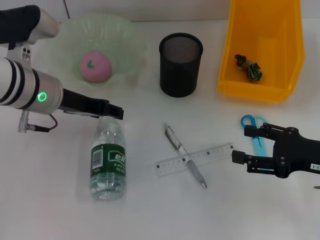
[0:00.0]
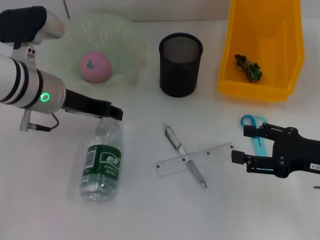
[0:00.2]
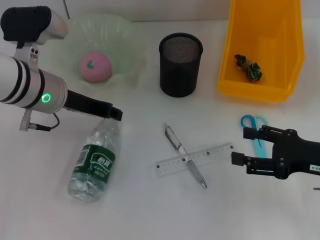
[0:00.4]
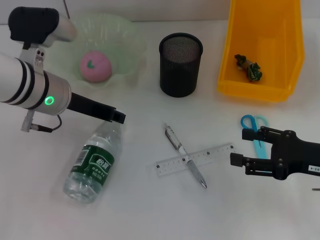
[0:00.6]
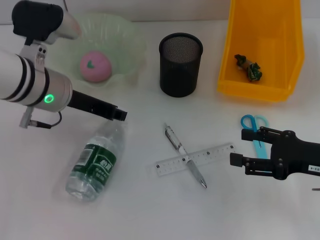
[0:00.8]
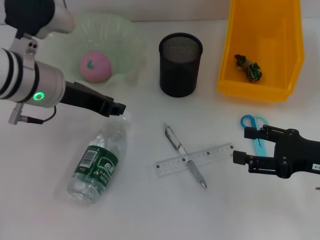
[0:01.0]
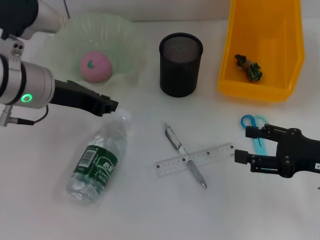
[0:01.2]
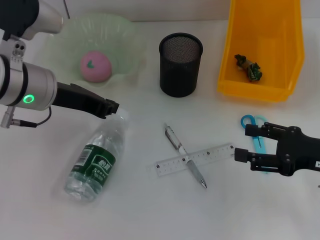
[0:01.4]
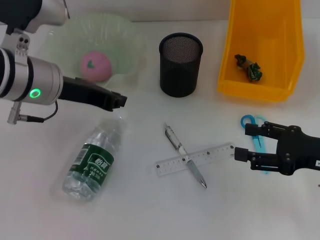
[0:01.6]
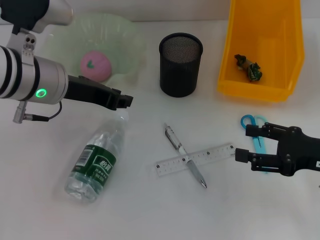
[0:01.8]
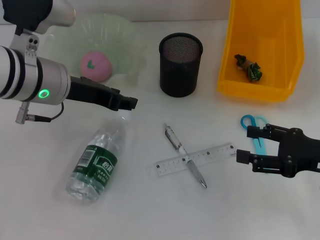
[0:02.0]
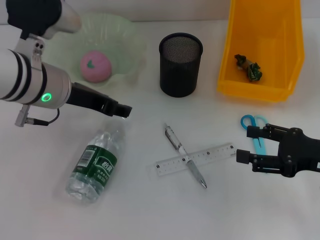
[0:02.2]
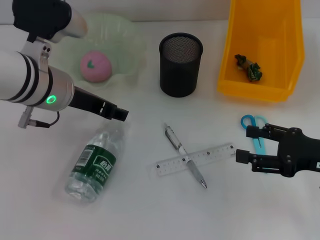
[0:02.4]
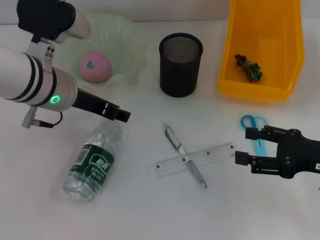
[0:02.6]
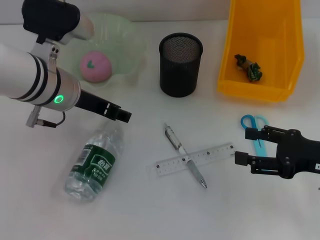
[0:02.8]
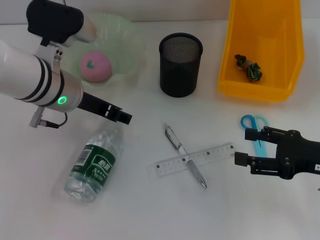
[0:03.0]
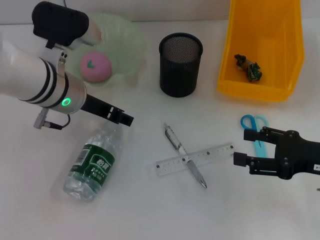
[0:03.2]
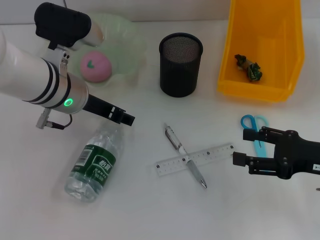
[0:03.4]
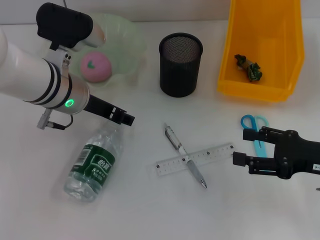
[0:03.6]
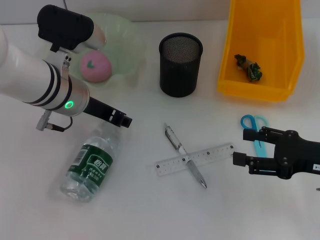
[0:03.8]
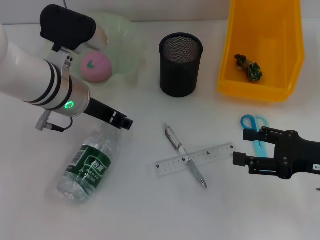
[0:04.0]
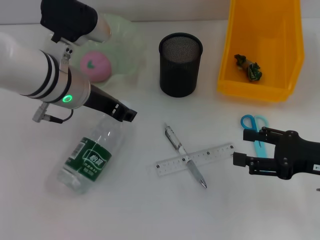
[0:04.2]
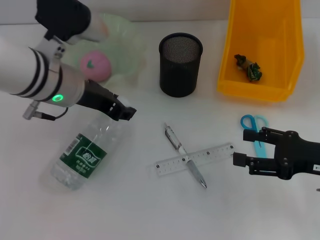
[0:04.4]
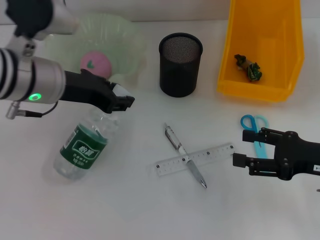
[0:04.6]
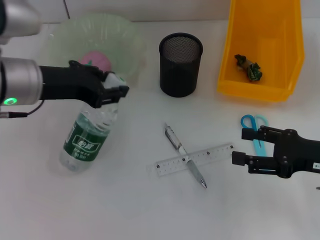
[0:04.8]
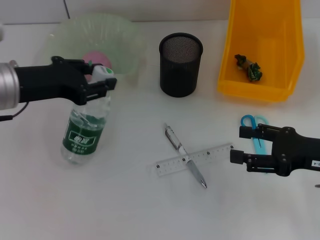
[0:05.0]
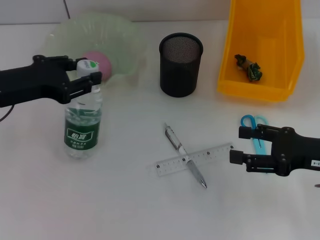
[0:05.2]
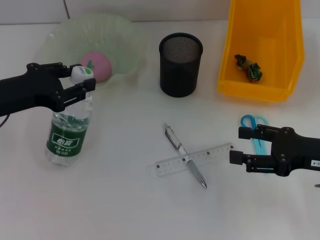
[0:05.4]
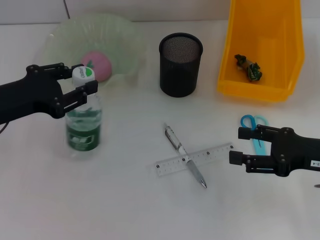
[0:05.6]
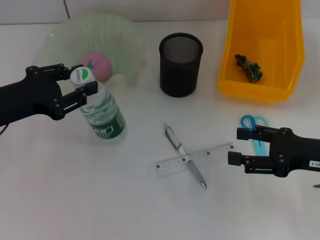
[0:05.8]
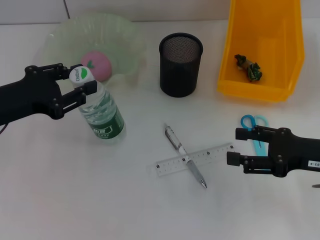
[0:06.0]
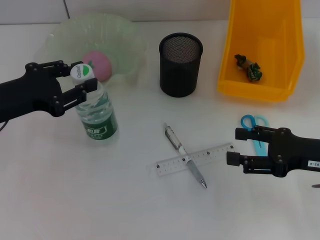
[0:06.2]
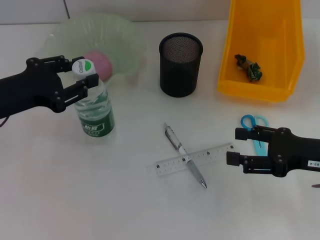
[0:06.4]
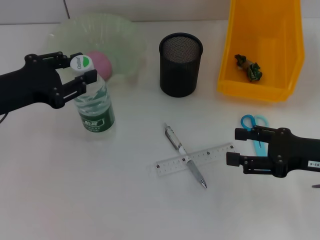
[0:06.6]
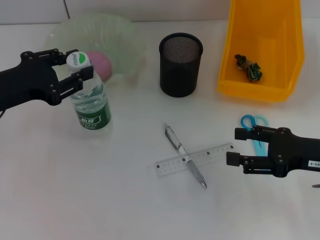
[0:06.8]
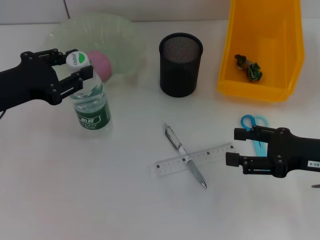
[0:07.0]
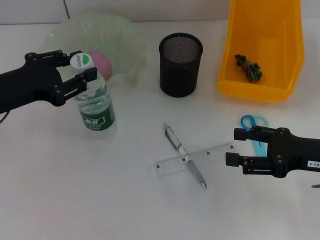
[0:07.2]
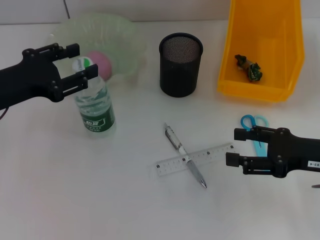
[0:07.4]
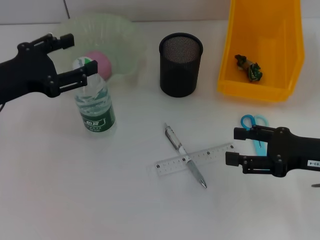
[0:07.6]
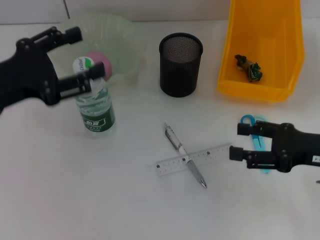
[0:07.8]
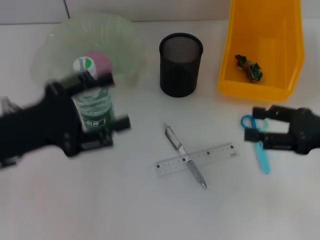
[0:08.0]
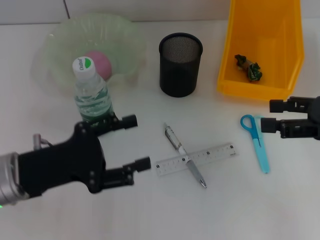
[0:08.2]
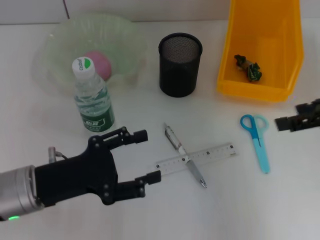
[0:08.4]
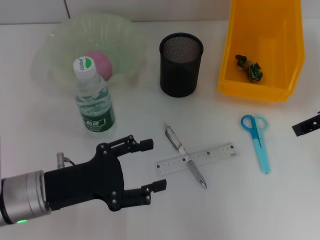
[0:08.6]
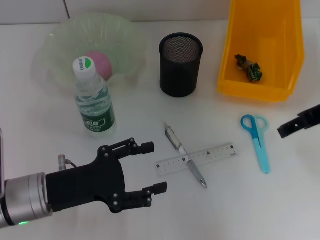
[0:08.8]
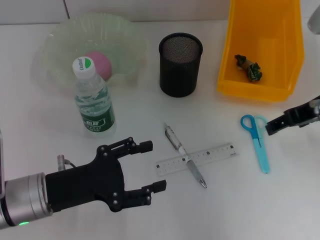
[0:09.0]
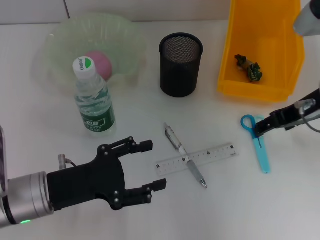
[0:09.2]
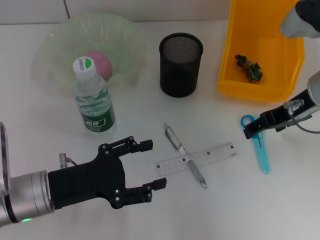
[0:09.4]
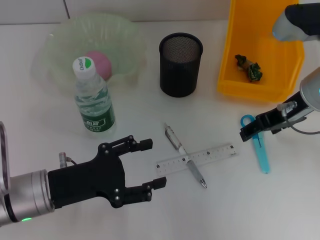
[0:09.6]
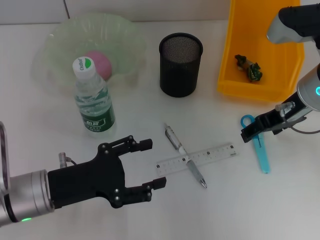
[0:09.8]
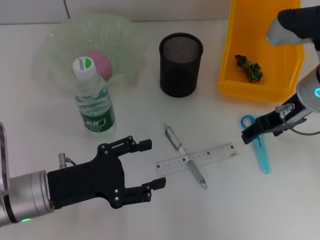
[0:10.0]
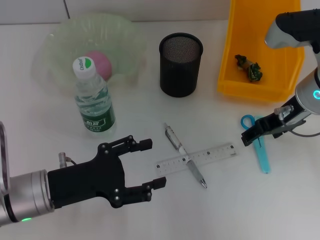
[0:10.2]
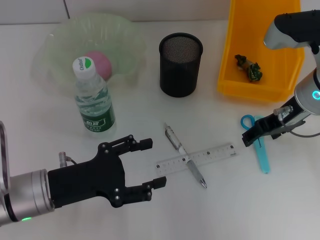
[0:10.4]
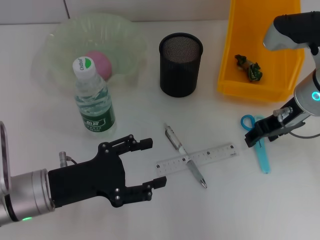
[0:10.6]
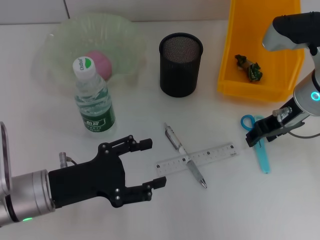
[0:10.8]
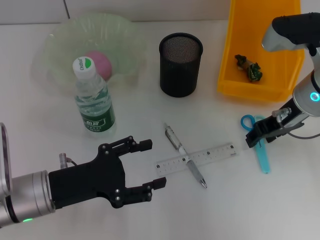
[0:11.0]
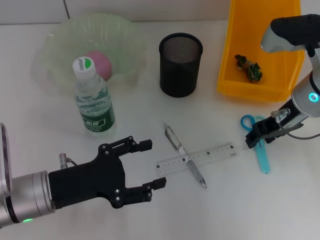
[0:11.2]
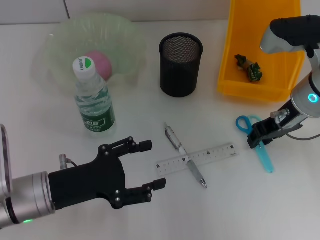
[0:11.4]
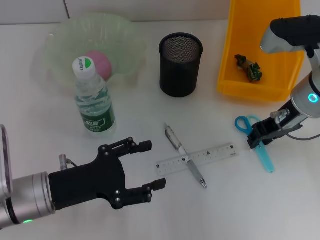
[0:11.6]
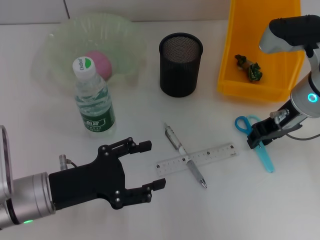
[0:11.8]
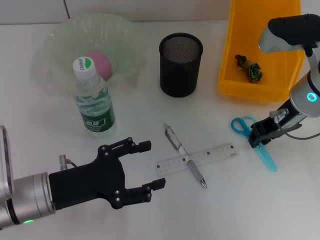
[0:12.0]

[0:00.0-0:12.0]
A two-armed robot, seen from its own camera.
Step, 0:00.0 to 0:03.6: Grab the water bottle with the left hand.
Step, 0:03.8 to 0:07.6: Place the water bottle on the table with the left hand.
0:00.0 to 0:01.6: The left gripper closes.
0:01.6 to 0:03.0: The left gripper opens up.
0:03.0 to 0:04.4: The grippers stay close to where they were, moving slightly.
0:04.4 to 0:06.0: The left gripper heads to the left and backward, covering roughly 15 cm.
0:06.0 to 0:07.6: The grippers make only small movements.
0:07.6 to 0:09.0: The right gripper shifts roughly 10 cm upward and forward, while the left gripper heads downward, backward and to the right, covering some 15 cm.
0:09.0 to 0:10.4: The right gripper shifts by approximately 5 cm.
0:10.4 to 0:12.0: The right gripper closes its fingers.

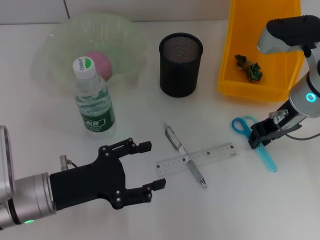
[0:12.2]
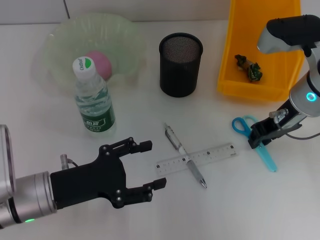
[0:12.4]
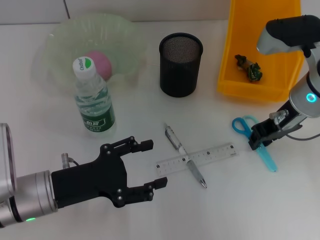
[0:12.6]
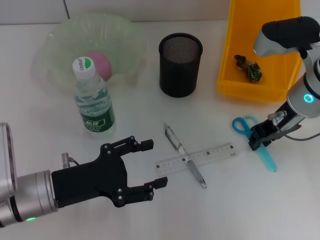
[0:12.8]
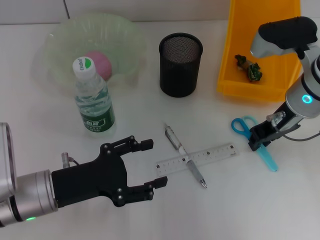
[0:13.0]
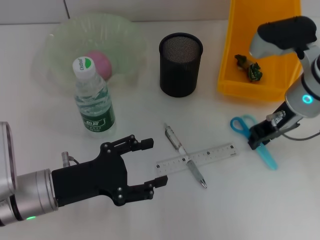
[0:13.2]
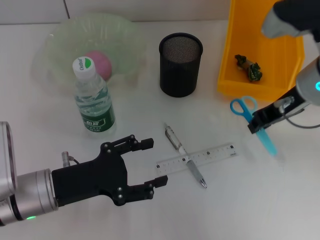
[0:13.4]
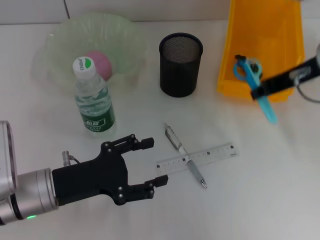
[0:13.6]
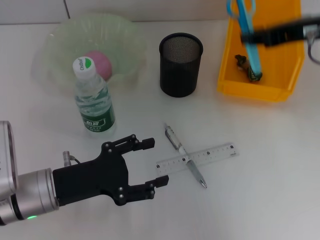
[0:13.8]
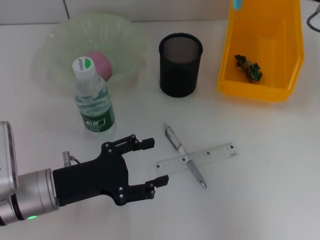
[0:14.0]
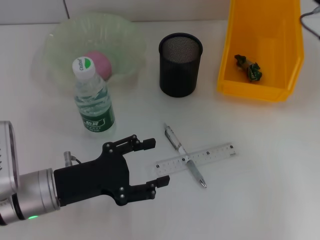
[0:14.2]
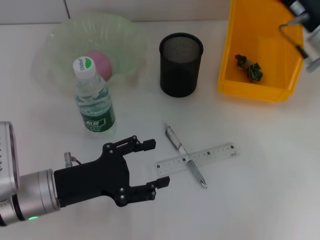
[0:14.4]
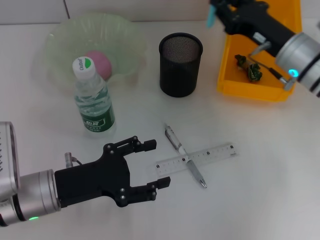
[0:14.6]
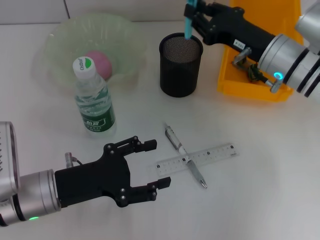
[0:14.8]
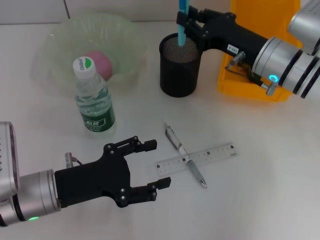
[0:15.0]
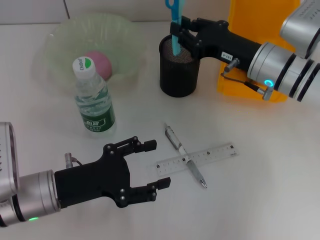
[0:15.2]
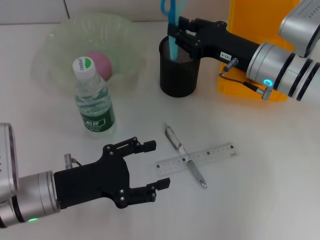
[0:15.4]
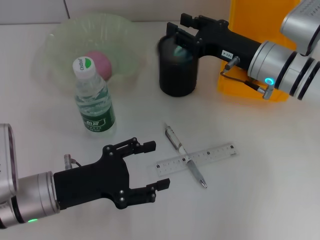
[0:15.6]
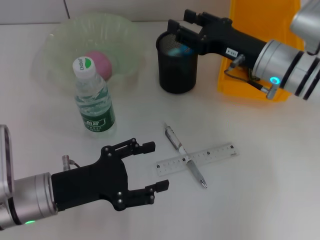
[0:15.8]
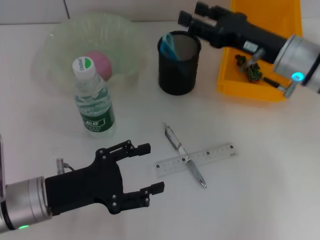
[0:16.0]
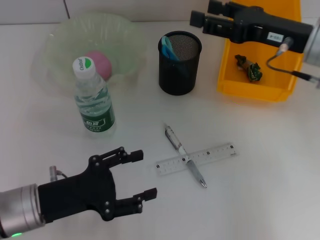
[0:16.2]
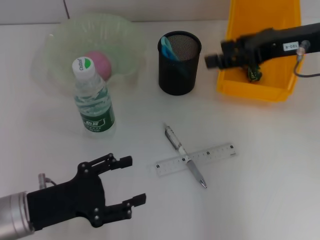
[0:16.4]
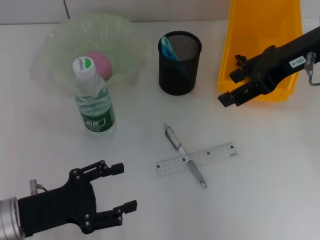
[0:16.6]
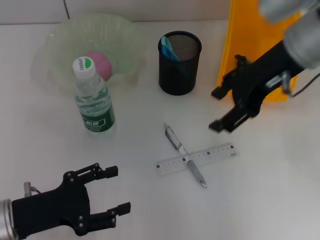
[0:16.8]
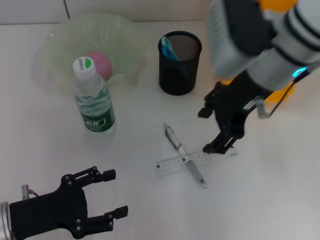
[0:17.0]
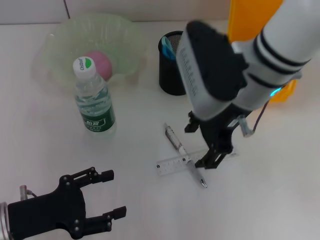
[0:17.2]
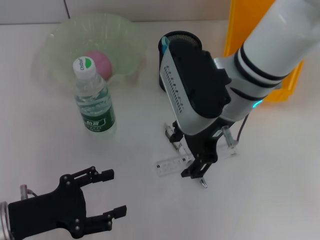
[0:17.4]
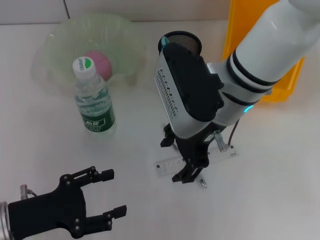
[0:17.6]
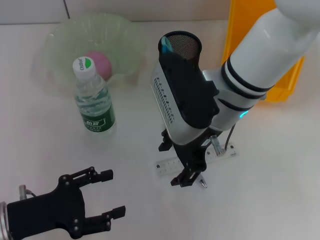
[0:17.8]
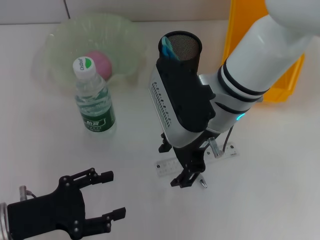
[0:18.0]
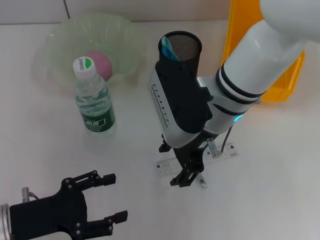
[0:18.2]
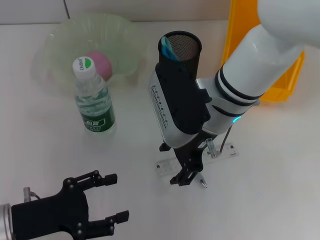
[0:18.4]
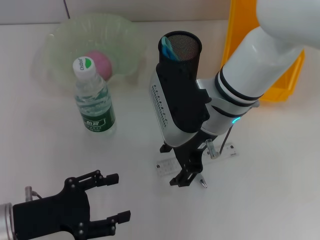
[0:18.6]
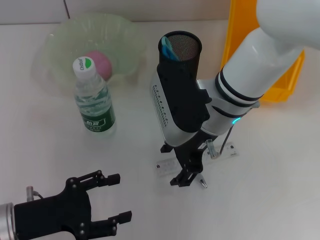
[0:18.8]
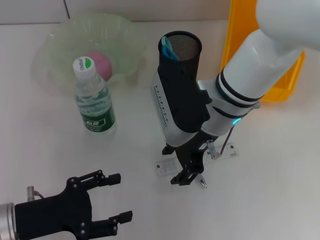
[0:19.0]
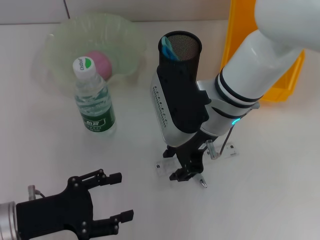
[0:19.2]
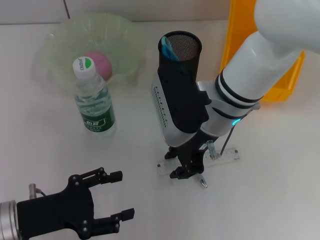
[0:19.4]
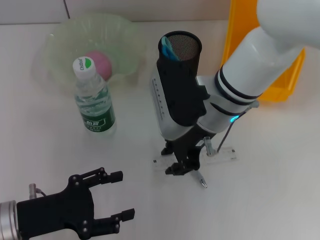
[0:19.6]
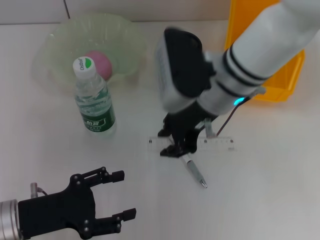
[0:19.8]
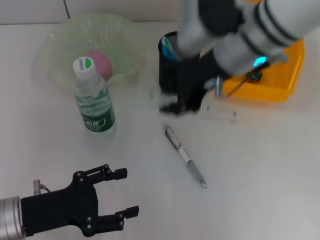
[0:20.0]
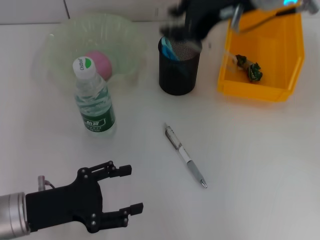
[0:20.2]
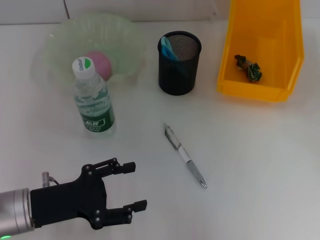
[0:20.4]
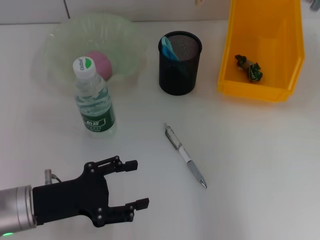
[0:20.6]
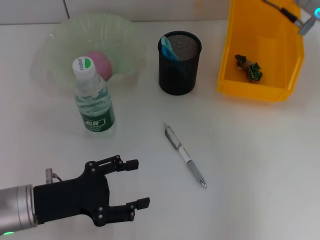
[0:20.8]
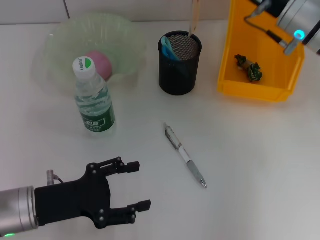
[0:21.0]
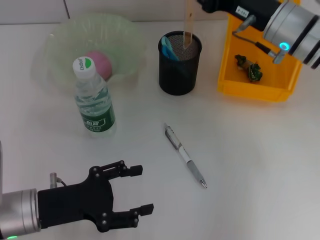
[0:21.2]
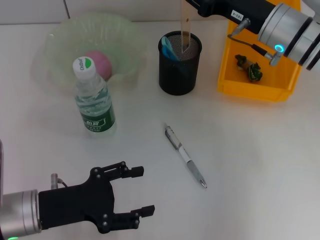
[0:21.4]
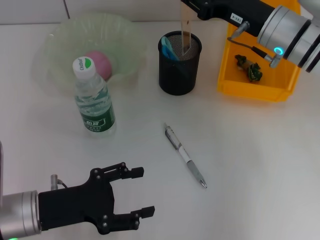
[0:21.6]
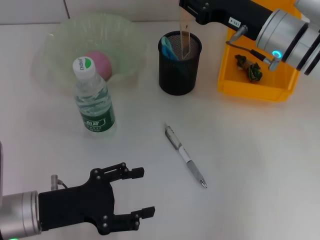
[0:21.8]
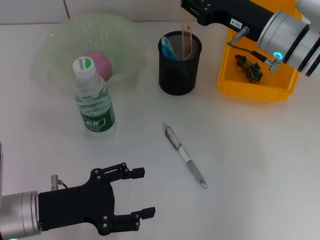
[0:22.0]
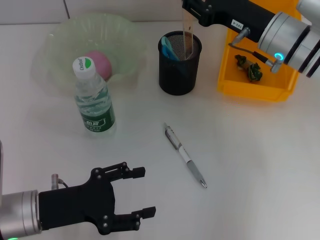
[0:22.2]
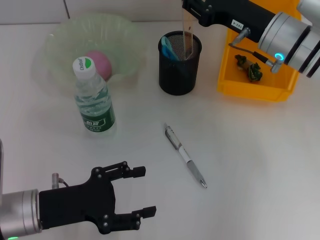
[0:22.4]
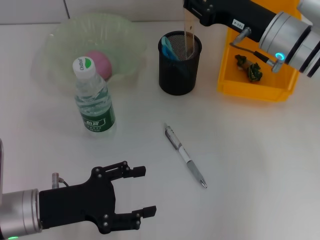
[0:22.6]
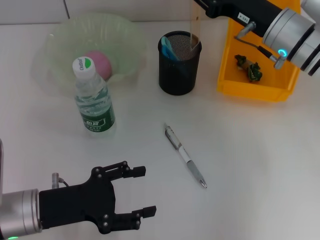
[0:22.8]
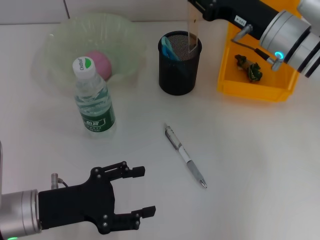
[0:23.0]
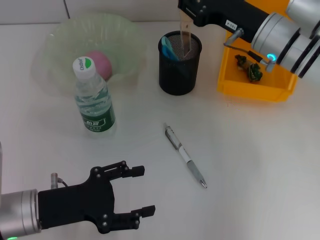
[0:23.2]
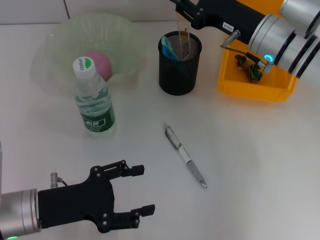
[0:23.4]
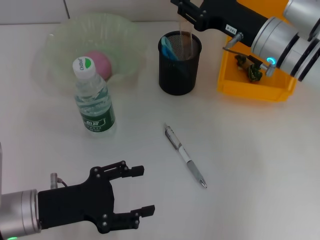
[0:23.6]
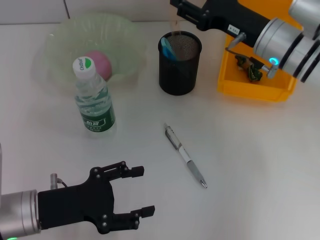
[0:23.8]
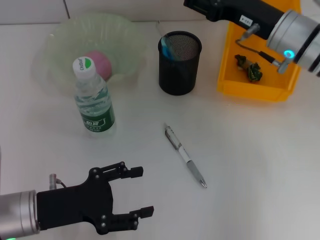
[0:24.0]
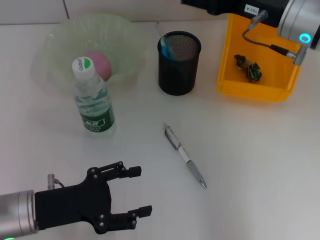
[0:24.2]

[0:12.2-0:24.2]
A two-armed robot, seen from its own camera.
Step, 0:13.2 to 0:15.6: Place the blue scissors into the pen holder with the right hand.
Step, 0:15.8 to 0:19.2: Grab the ruler with the right hand.
Step, 0:19.4 to 0:23.6: Place the ruler into the pen holder with the right hand.
0:12.2 to 0:13.8: The right gripper goes roughly 10 cm upward.
0:13.8 to 0:15.2: The right gripper goes some 15 cm downward.
0:15.2 to 0:16.6: The left gripper ends up some 5 cm from where it was. The right gripper goes roughly 15 cm upward, and opens up.
0:16.6 to 0:18.2: The right gripper goes approximately 15 cm to the left and downward.
0:18.2 to 0:19.8: The right gripper closes.
0:19.8 to 0:21.2: The right gripper is displaced to the right by some 10 cm, and goes upward and returns, roughly 10 cm each way.
0:21.2 to 0:22.6: Both grippers stay put.
0:22.6 to 0:24.2: The right gripper is displaced upward by approximately 5 cm, and opens.
